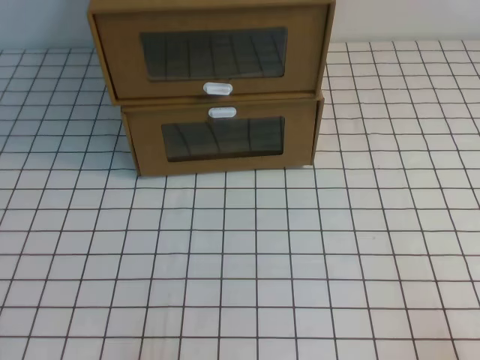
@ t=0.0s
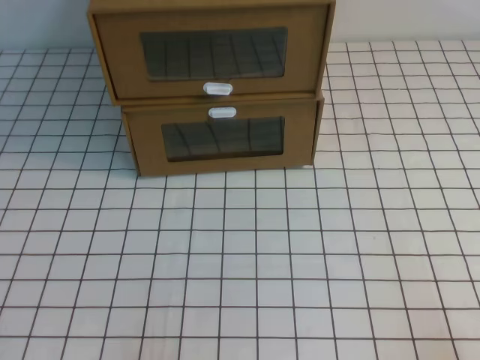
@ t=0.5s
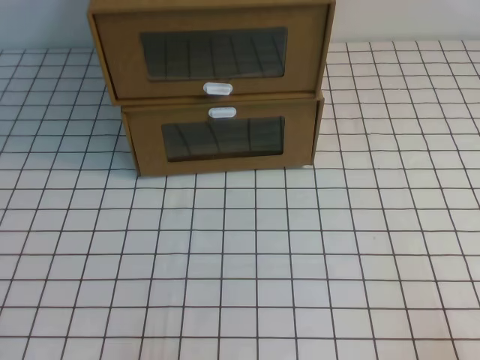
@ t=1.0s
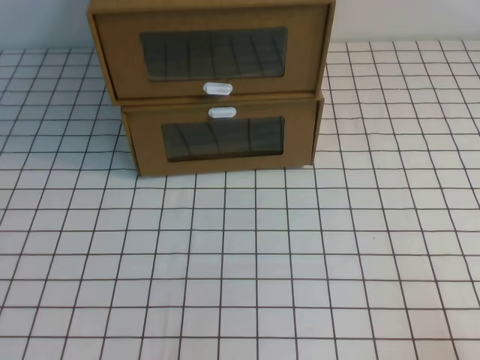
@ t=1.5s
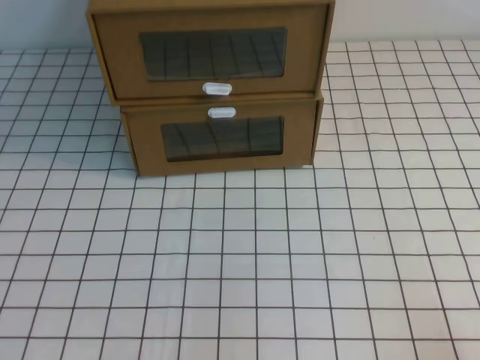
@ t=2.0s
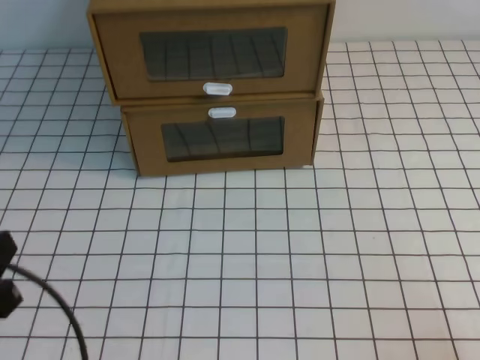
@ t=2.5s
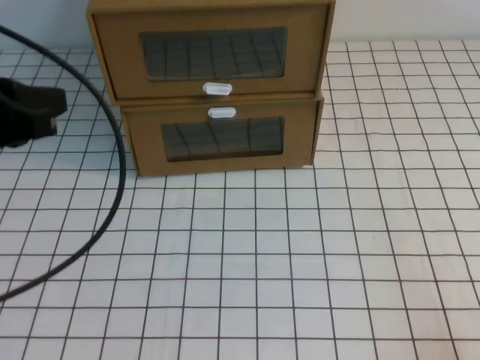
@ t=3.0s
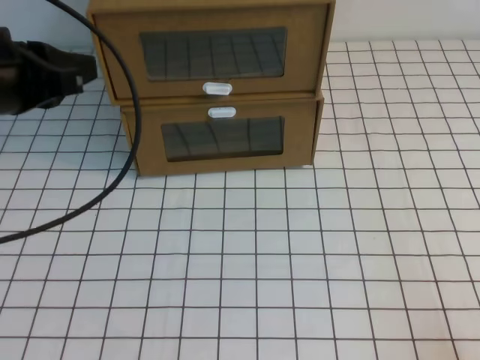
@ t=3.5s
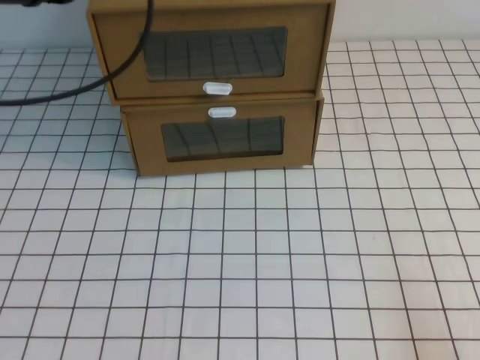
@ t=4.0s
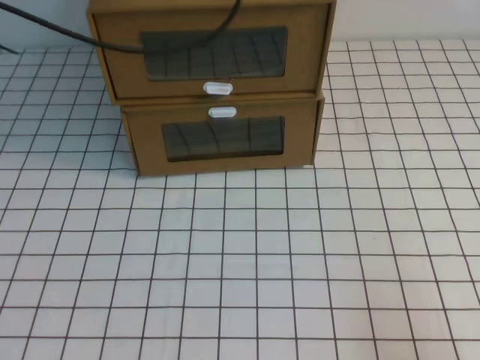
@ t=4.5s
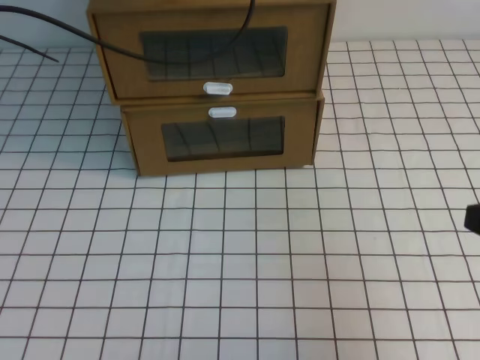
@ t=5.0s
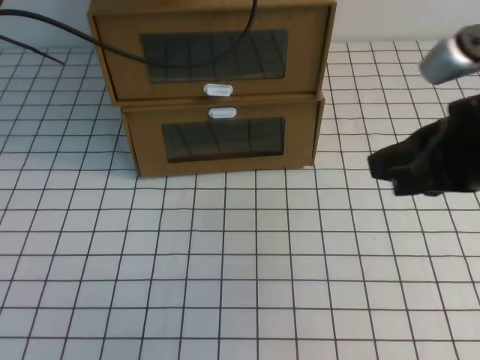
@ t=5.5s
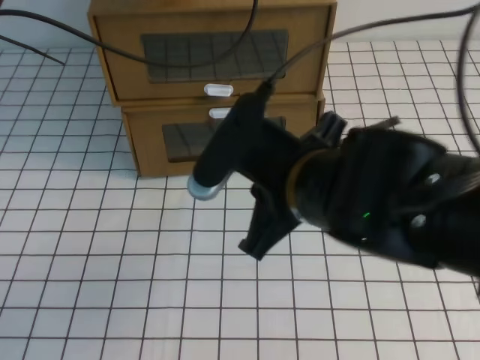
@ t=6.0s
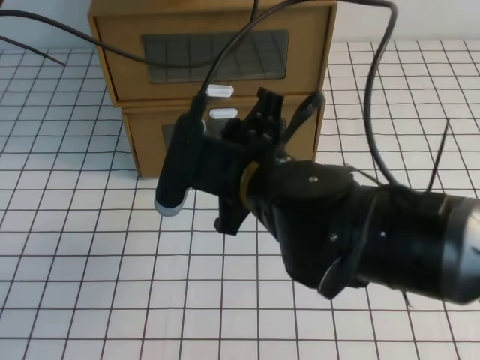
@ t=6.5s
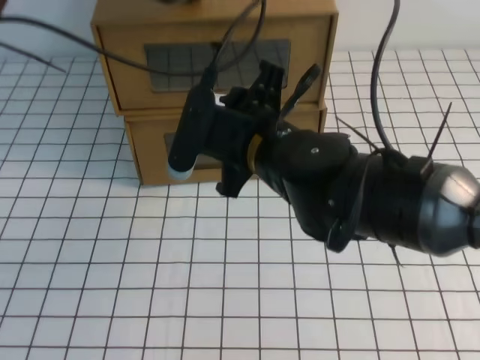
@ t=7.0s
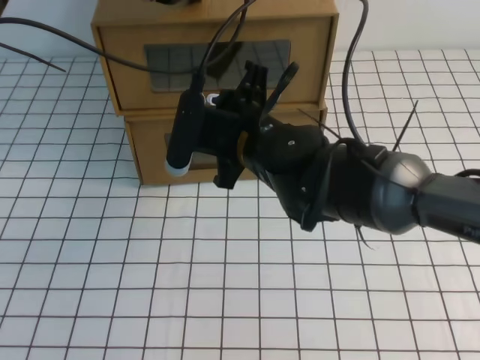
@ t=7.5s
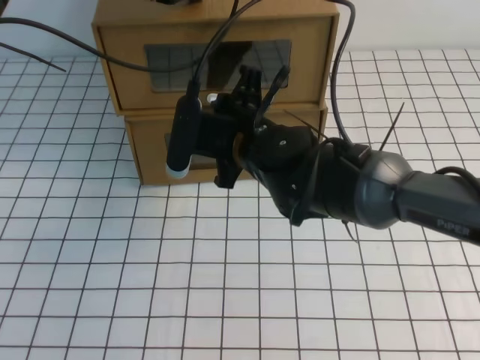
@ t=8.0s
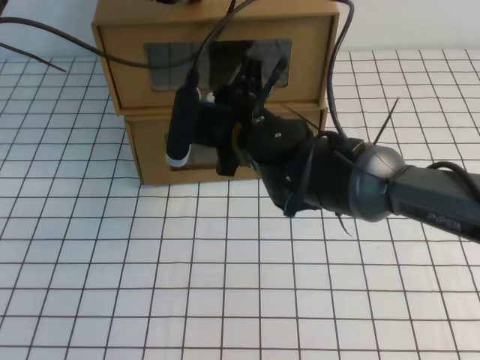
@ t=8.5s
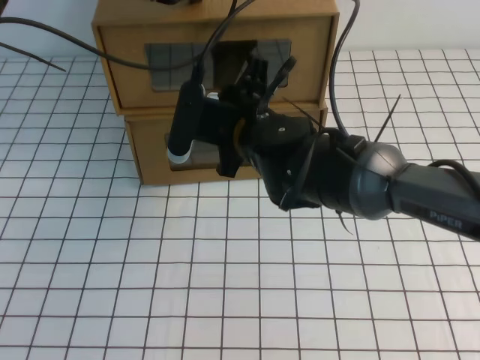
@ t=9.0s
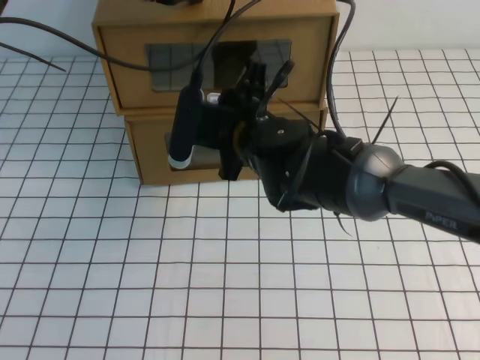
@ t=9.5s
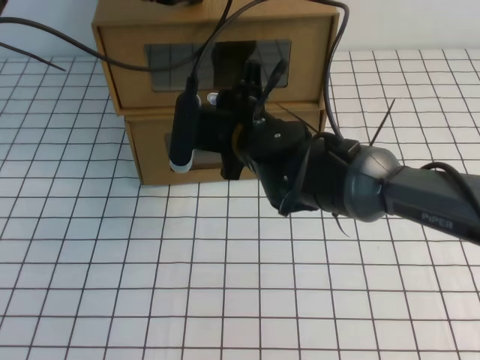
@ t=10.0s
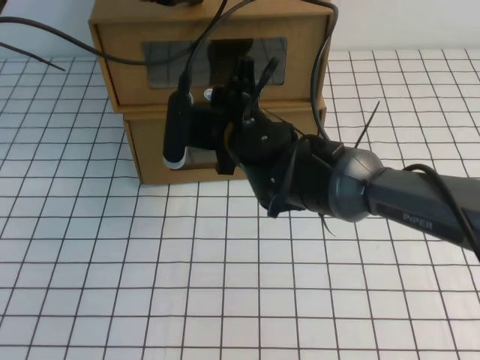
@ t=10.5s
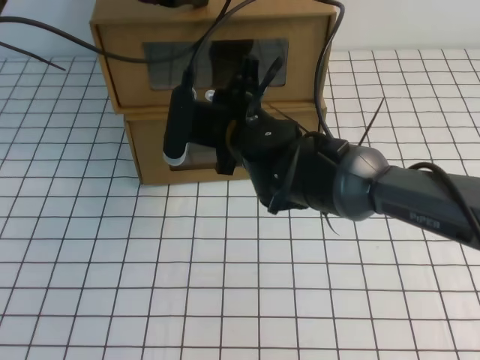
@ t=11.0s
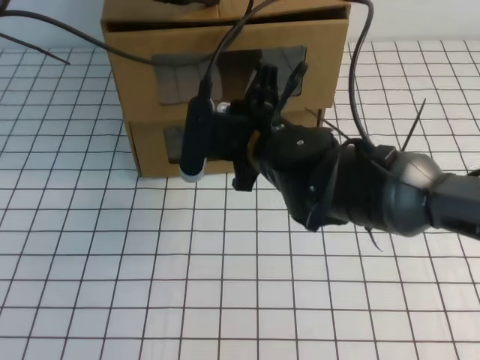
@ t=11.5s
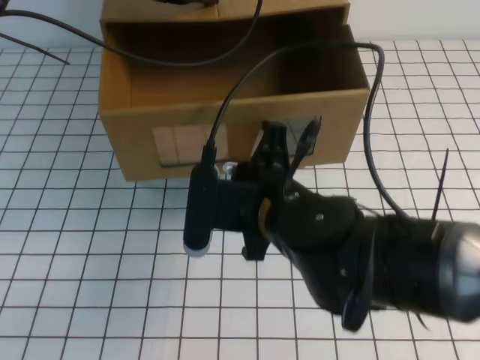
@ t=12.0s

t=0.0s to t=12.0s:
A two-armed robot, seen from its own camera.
Task of the whole recording: open the shoebox on the white tablecloth.
t=2.0s to t=4.0s: The left gripper travels forward and upward by roughly 35 cm.
t=4.0s to t=6.0s: The left gripper heads forward and to the right, covering roughly 15 cm. Meanwhile the right gripper goes some 30 cm to the left, forward and upward.
t=6.0s to t=8.0s: The right gripper shifts some 15 cm forward, downward and to the left, and opens.
t=8.0s to t=10.0s: The grippers stay close to where they were, moving slightly.
t=10.0s to t=12.0s: The right gripper shifts approximately 10 cm backward, and closes.

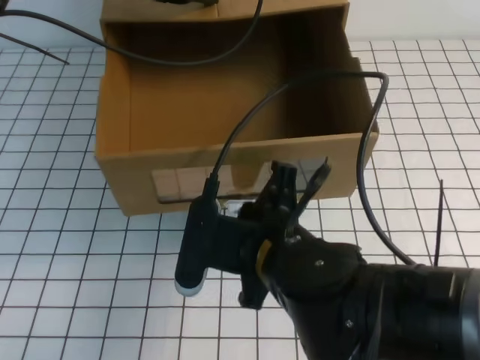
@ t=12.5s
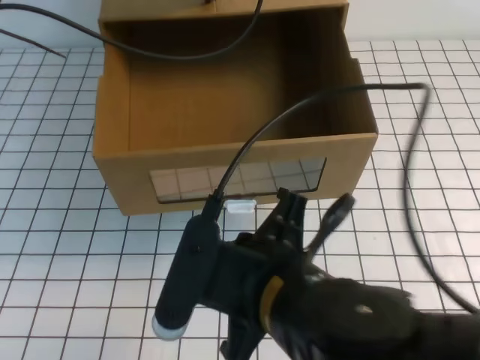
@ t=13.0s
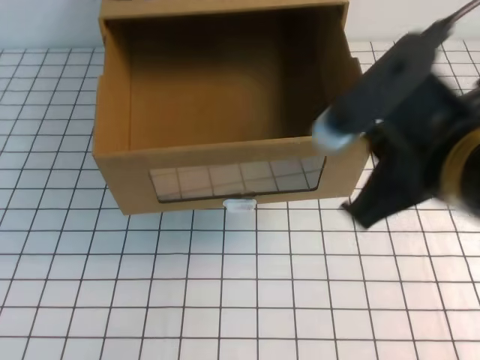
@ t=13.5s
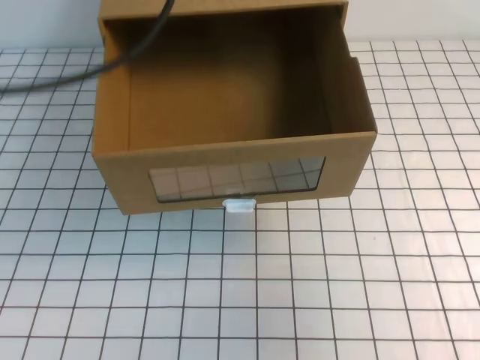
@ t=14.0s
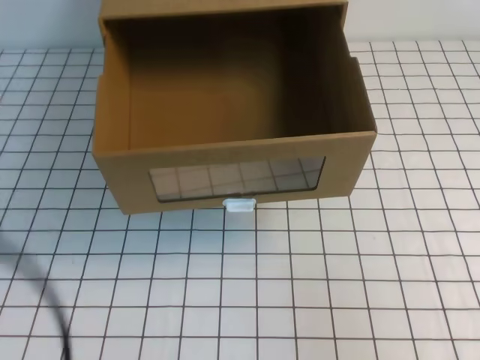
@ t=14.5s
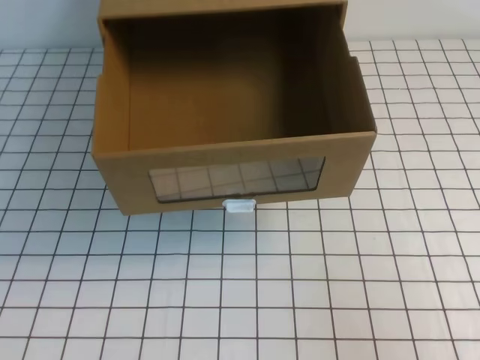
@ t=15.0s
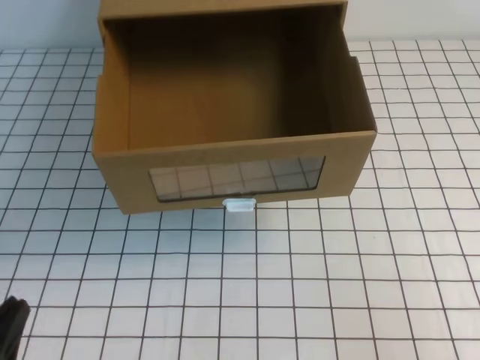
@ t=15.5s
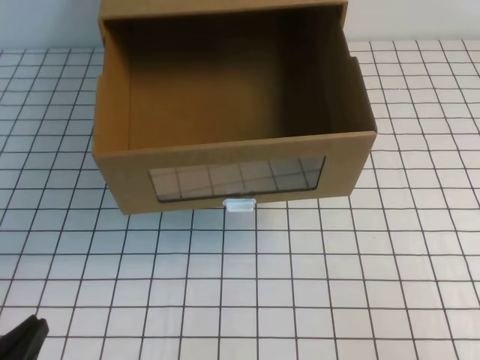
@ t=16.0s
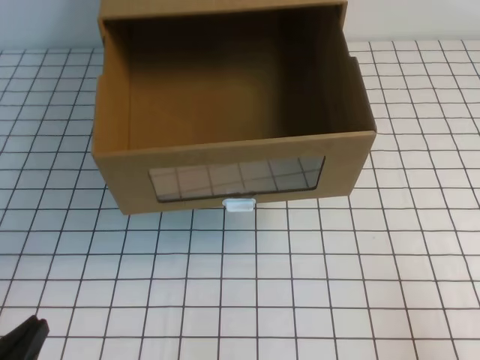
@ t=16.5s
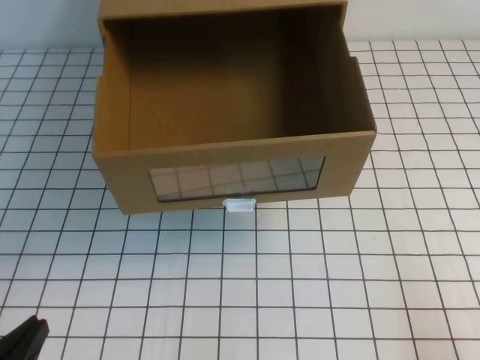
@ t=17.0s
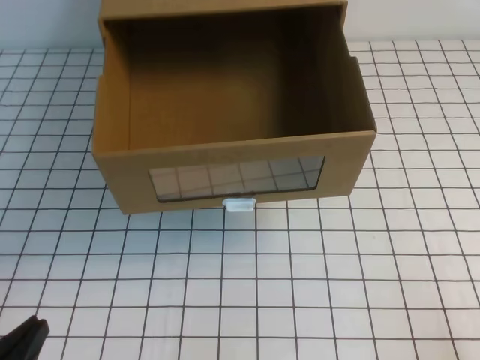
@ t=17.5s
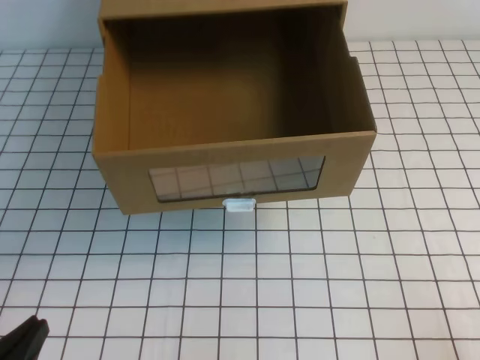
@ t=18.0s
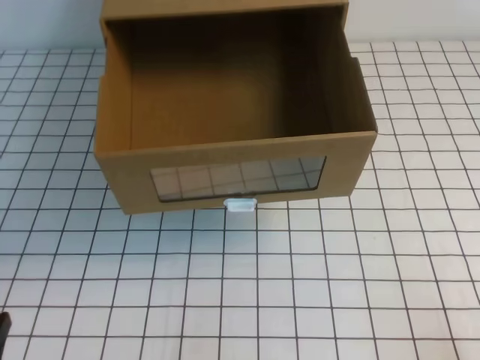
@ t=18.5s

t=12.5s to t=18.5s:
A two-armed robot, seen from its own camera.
Task of the whole recording: open the shoebox on the white tablecloth.
Step, t=12.5s to t=18.5s: Open the shoe box.
t=12.5s to t=14.5s: The right gripper shifts some 25 cm to the right. Meanwhile the left gripper goes roughly 30 cm backward.
t=14.5s to t=16.5s: The left gripper is displaced downward by roughly 20 cm.
